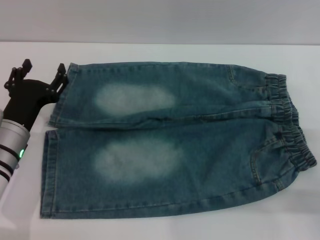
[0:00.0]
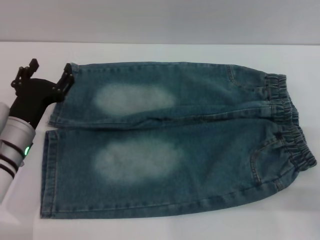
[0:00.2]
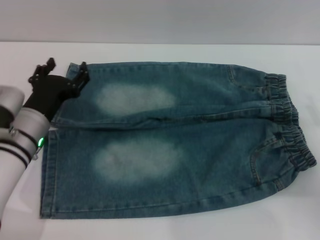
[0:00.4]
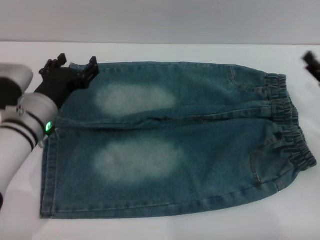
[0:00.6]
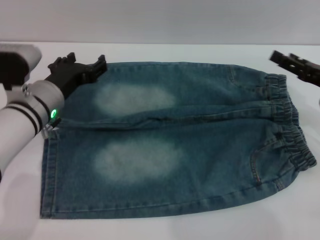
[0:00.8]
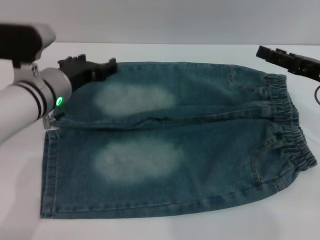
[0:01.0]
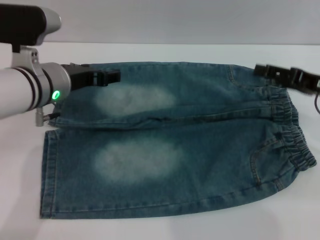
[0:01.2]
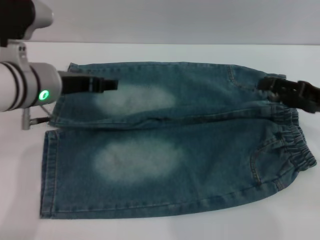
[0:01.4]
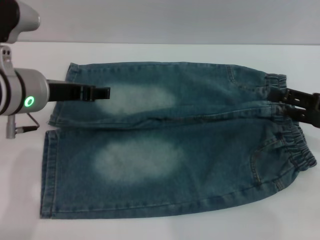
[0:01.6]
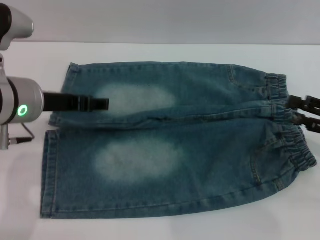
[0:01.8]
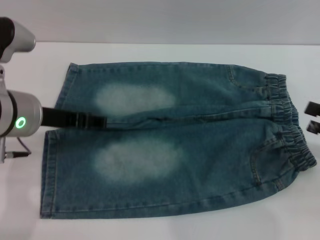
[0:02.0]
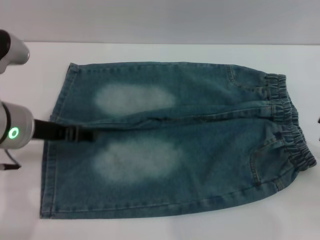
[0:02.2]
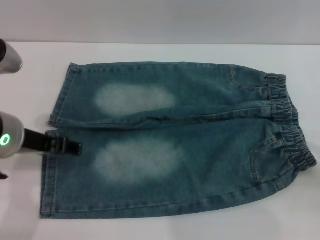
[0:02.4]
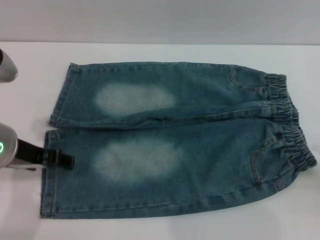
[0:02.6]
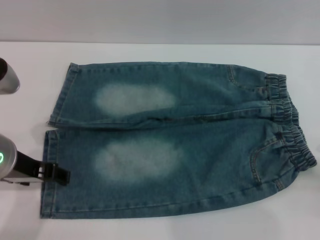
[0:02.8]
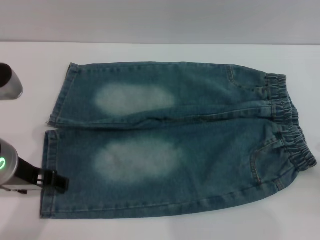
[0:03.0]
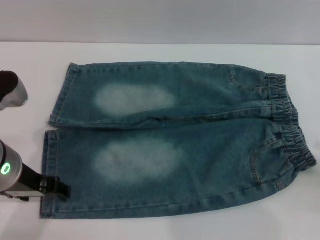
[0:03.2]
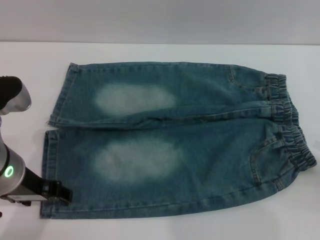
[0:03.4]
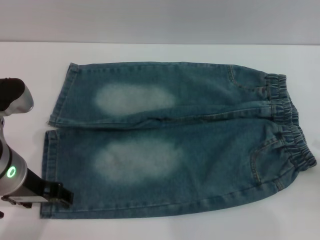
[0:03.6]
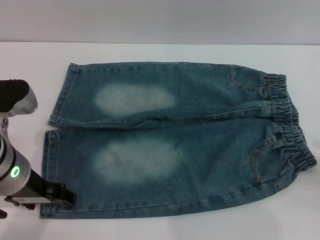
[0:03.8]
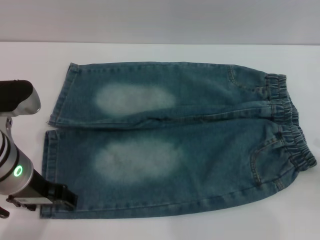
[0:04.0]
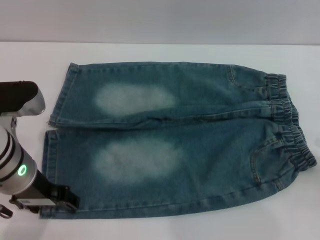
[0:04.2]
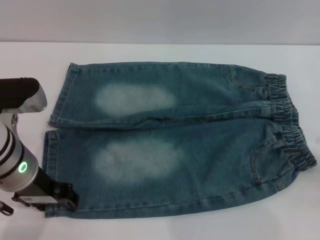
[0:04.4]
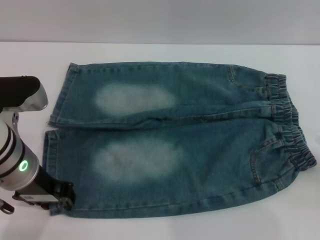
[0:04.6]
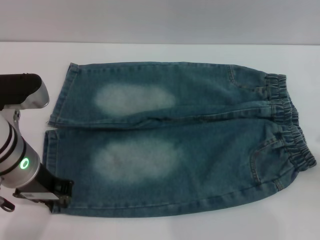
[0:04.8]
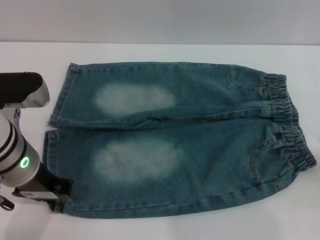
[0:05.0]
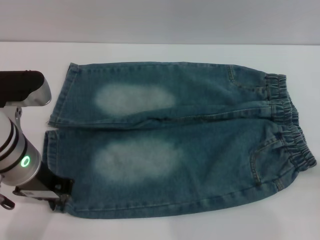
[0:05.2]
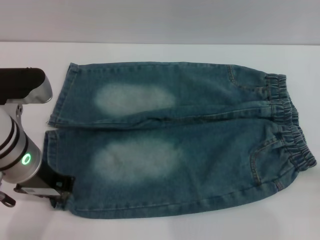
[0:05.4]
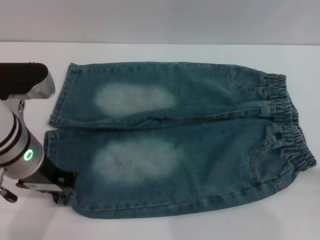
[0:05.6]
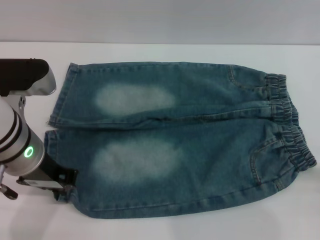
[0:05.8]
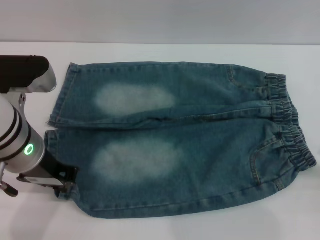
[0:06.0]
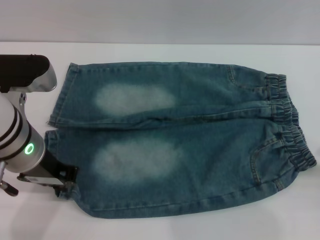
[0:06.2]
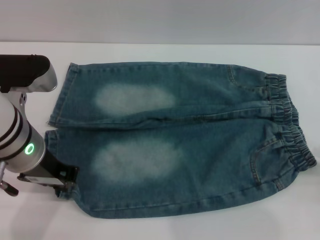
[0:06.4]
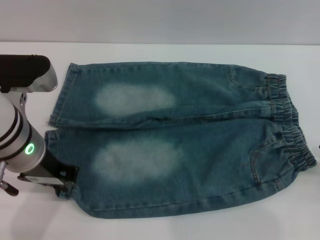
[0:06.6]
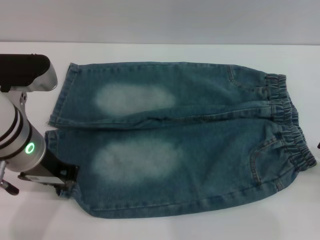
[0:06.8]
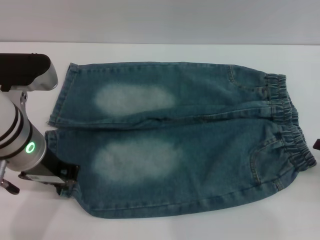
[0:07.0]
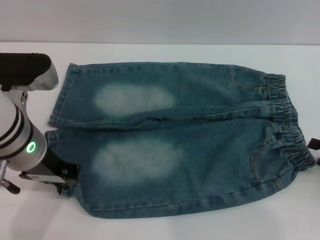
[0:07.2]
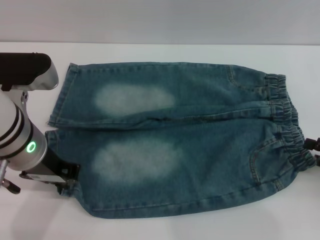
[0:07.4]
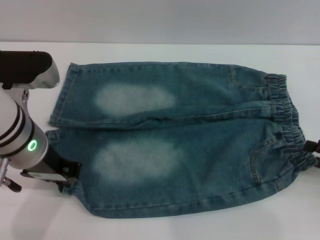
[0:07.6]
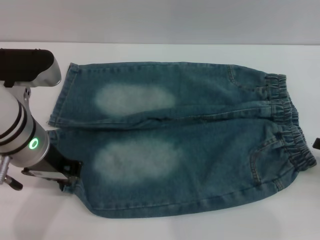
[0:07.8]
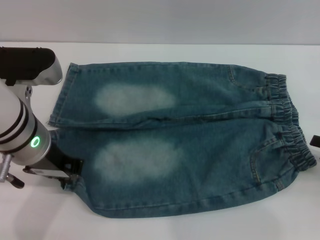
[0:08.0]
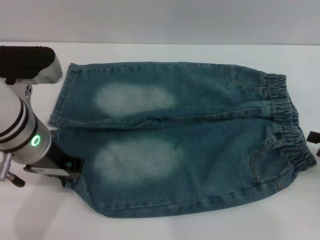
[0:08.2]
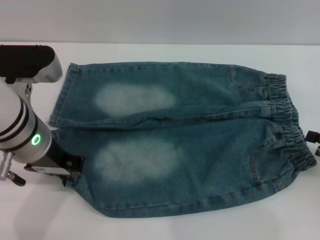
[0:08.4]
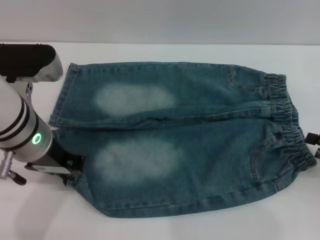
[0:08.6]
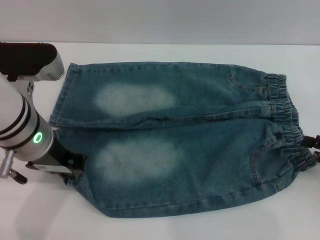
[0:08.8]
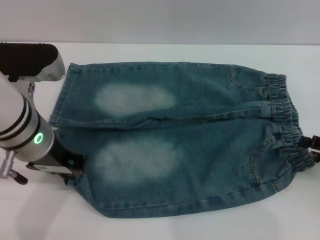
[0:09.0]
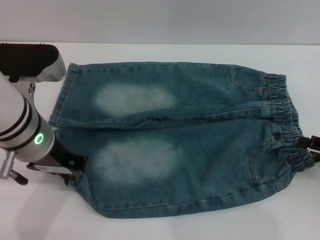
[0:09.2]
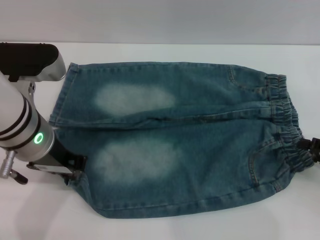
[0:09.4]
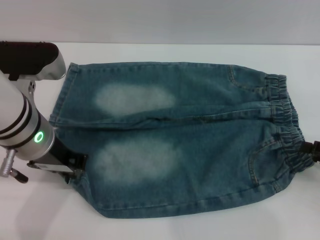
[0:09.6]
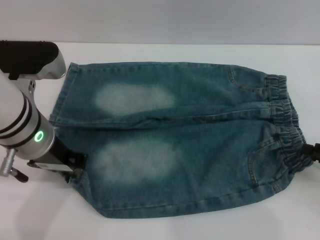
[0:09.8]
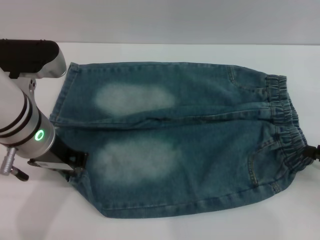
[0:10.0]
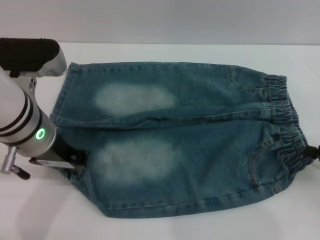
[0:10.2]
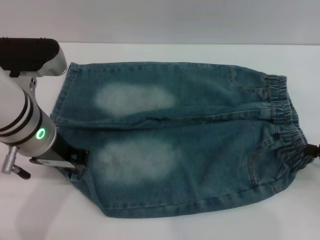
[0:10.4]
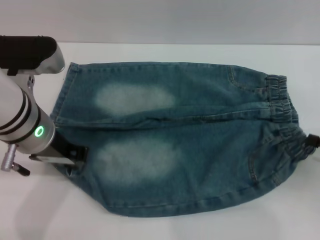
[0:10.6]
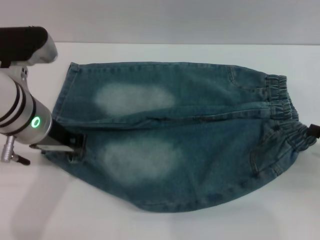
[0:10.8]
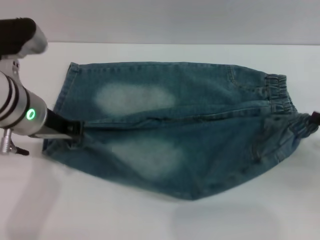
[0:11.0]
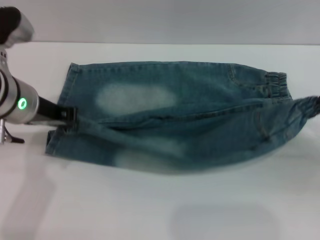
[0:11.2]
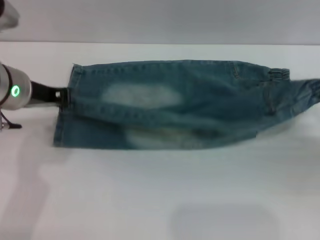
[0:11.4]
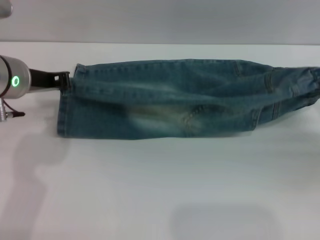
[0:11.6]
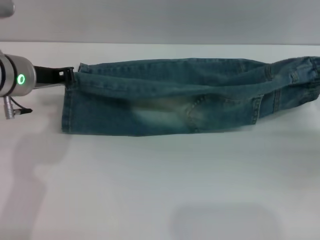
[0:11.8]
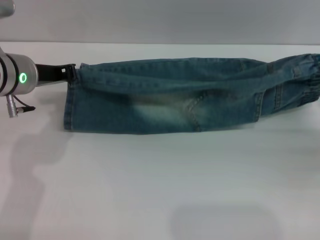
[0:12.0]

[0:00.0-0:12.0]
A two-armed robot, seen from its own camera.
0:00.0 to 0:01.6: The left gripper is displaced upward by approximately 15 cm; the right gripper is displaced upward and forward by roughly 10 cm.
0:01.6 to 0:03.0: The left gripper is displaced backward by roughly 5 cm. The right gripper goes some 10 cm backward and to the right.
0:03.0 to 0:04.4: The grippers stay close to where they were, moving slightly.
0:04.4 to 0:06.0: The left gripper closes.
0:06.0 to 0:09.0: The grippers make only small movements.
0:09.0 to 0:10.4: The right gripper closes.
0:10.4 to 0:12.0: The grippers both shift forward by roughly 5 cm.

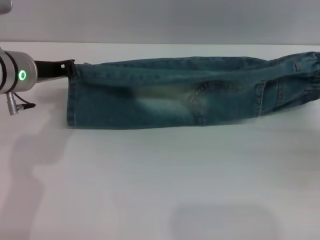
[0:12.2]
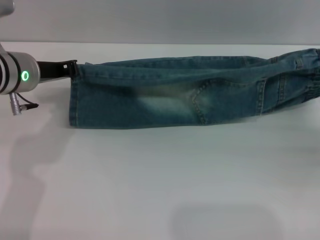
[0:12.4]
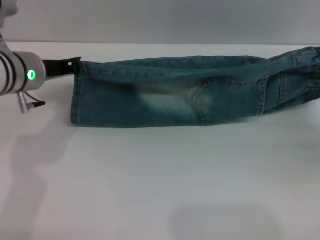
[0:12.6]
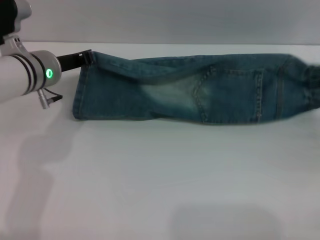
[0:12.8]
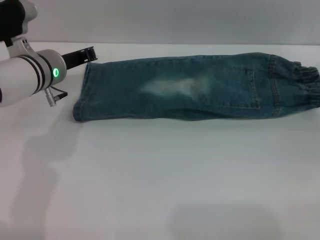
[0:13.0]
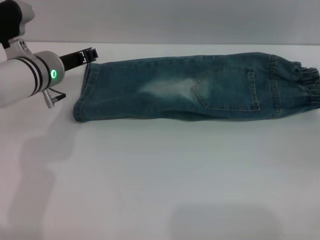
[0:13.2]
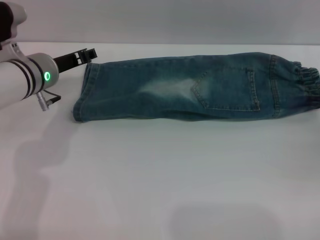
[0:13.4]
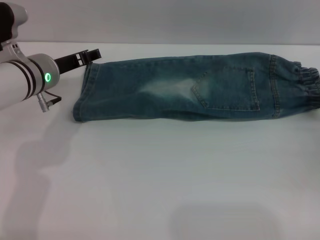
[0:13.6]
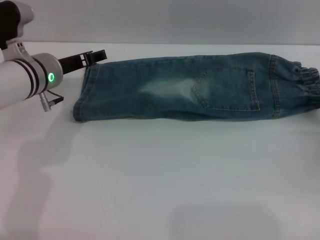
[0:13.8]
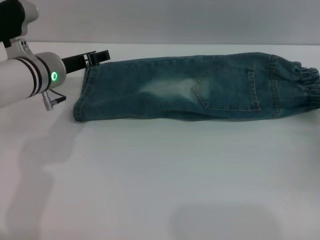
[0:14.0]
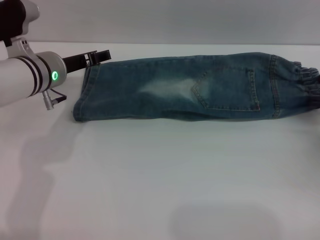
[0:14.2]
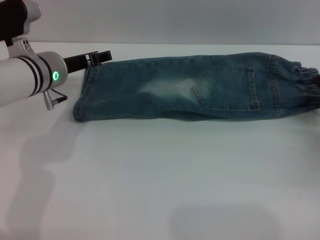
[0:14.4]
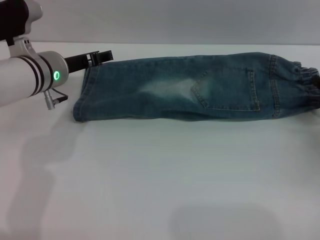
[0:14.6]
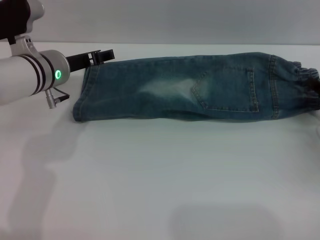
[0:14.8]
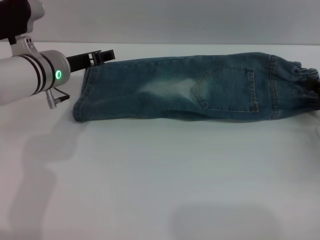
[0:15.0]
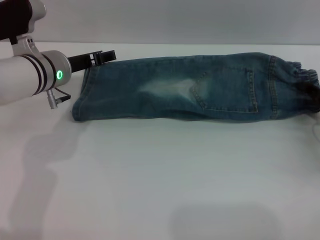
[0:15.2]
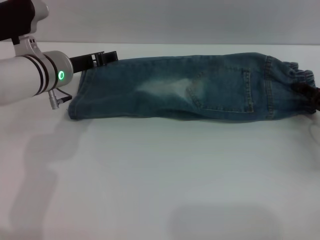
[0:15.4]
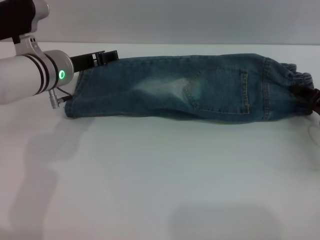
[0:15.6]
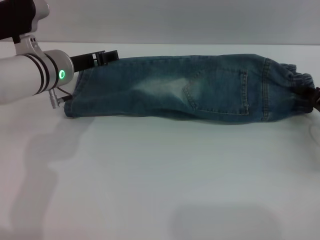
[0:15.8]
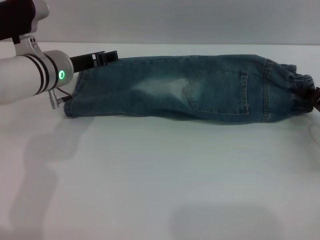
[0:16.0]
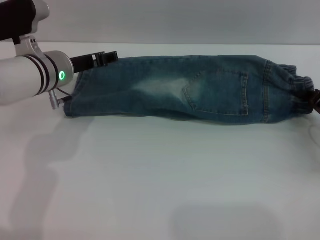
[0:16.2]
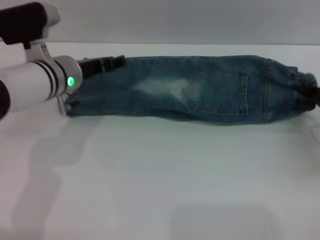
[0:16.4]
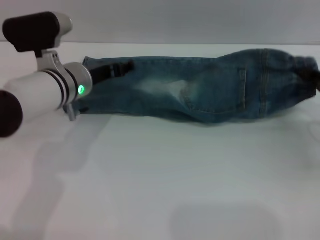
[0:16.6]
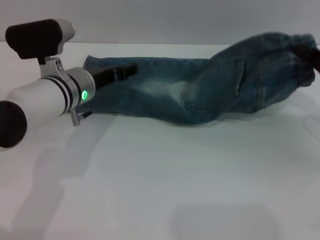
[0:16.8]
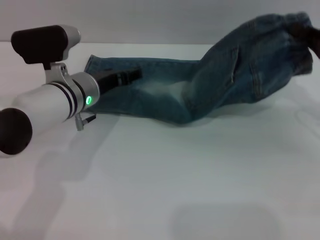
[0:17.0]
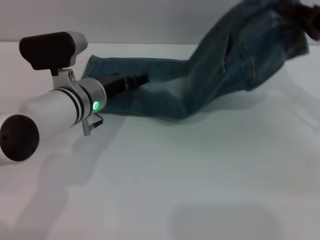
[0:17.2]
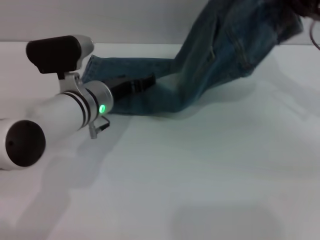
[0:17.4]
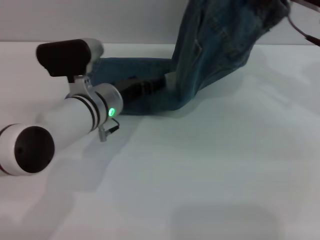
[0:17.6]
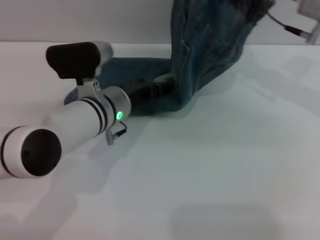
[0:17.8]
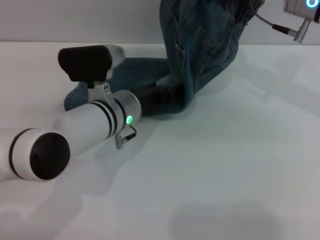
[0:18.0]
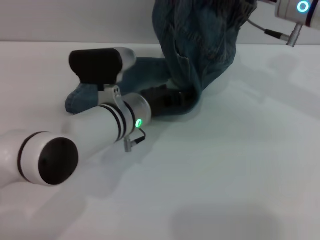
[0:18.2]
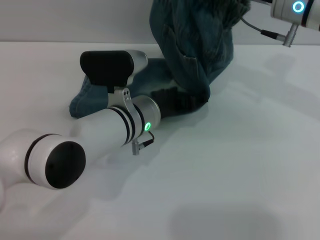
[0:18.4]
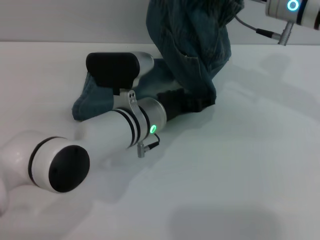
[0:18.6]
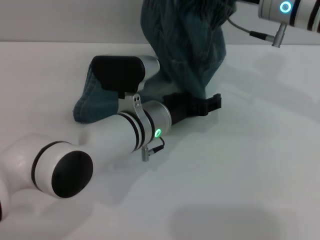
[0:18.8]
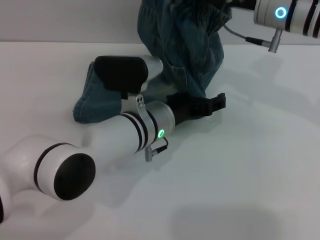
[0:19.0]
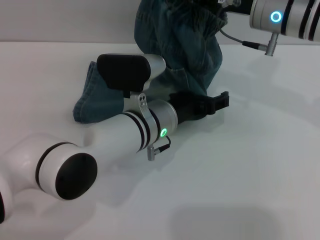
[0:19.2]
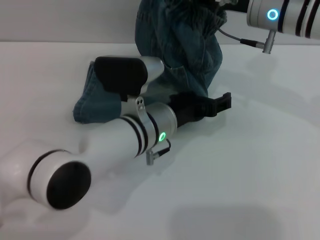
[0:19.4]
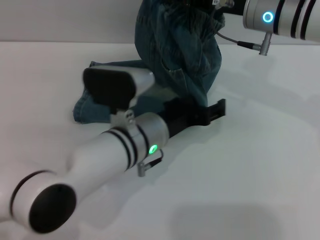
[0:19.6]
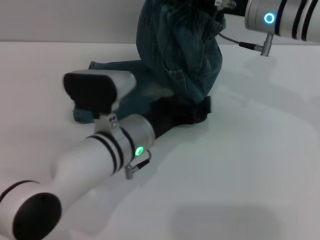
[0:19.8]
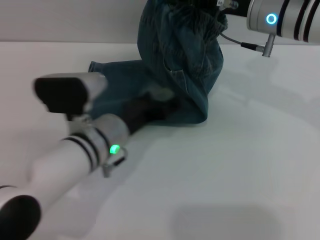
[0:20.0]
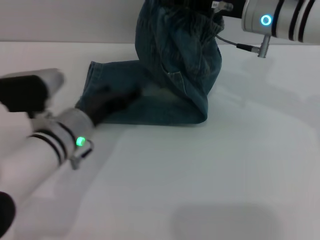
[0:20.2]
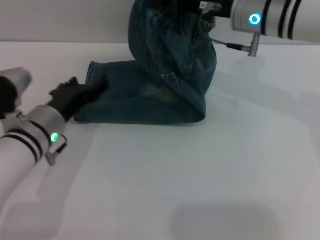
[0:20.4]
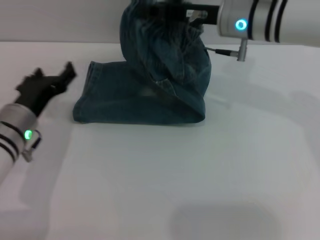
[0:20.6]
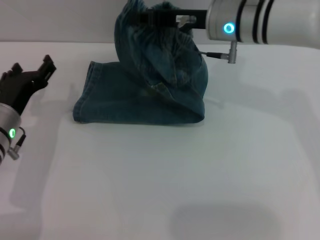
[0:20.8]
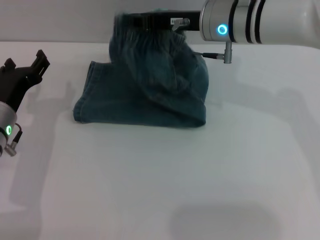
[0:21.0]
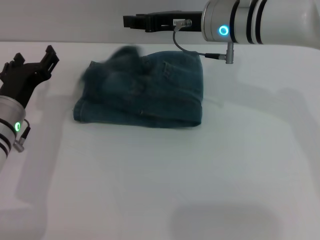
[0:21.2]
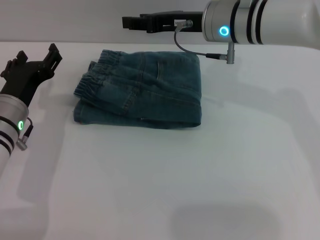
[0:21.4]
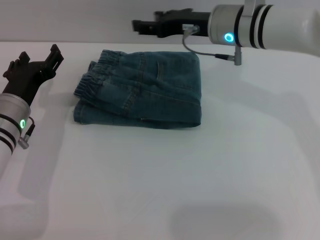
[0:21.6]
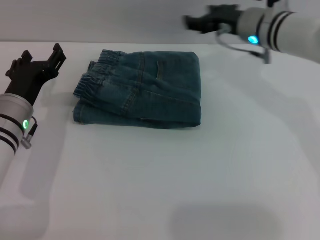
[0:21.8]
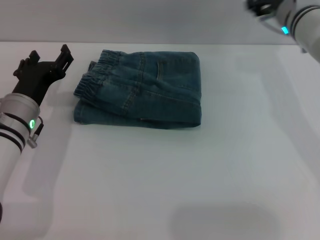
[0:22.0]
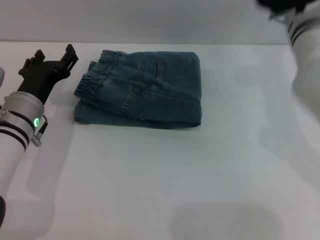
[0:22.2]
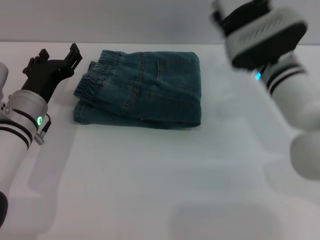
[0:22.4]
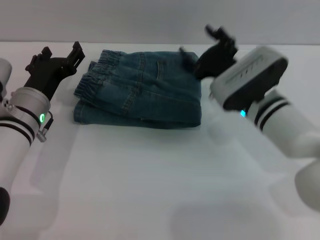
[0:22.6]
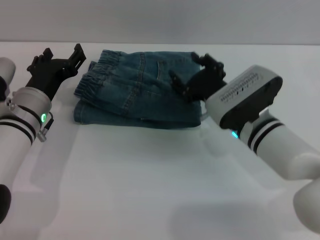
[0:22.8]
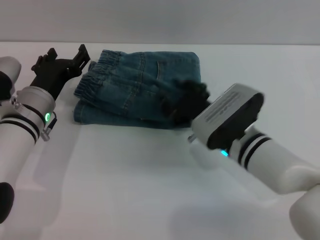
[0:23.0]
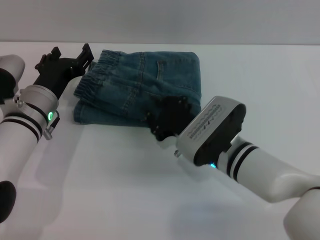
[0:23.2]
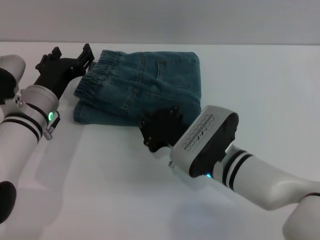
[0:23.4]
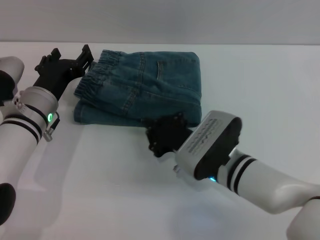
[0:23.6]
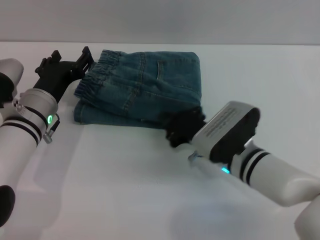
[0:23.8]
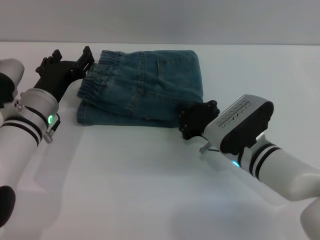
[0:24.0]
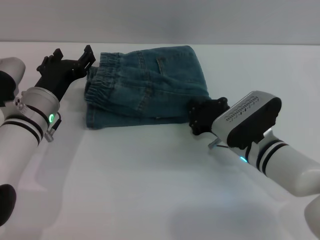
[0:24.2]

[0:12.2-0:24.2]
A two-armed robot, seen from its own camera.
Step, 0:13.8 to 0:21.2: Fold the pants from right to left with the right gripper.
0:12.2 to 0:13.8: The left gripper moves roughly 5 cm, and opens its fingers; the right gripper opens.
0:13.8 to 0:15.2: The grippers move only a little.
0:15.2 to 0:16.6: The right gripper closes.
0:16.6 to 0:18.2: The right gripper shifts some 20 cm to the left, upward and forward. The left gripper is displaced to the right by some 10 cm.
0:18.2 to 0:19.8: The left gripper goes roughly 5 cm backward.
0:19.8 to 0:21.2: The left gripper moves to the left, roughly 15 cm; the right gripper is displaced to the left by some 5 cm.
0:21.2 to 0:22.6: The right gripper heads downward and backward, covering approximately 15 cm, and opens its fingers.
0:22.6 to 0:24.2: The right gripper closes up.
